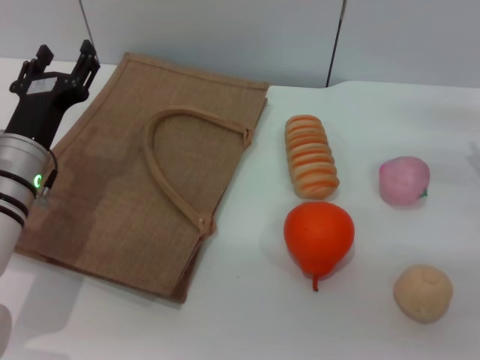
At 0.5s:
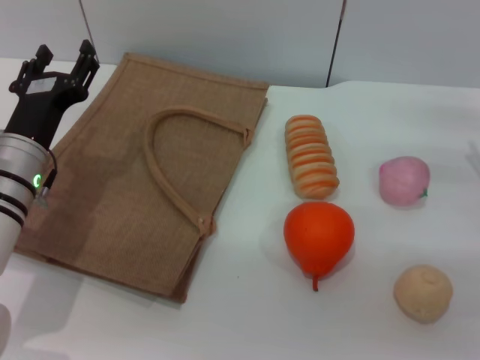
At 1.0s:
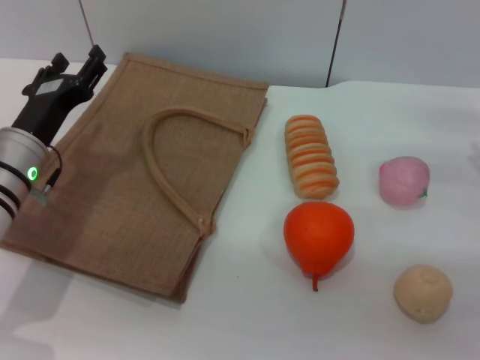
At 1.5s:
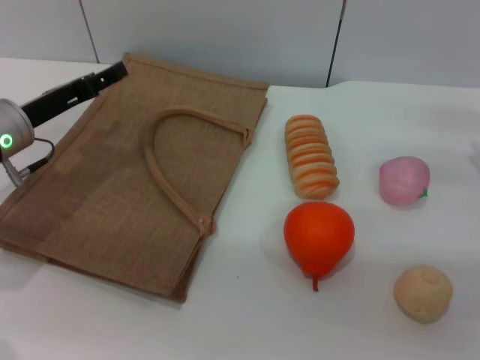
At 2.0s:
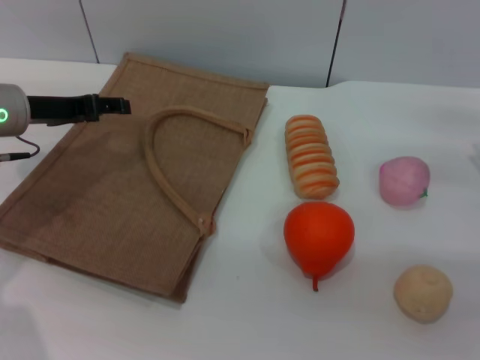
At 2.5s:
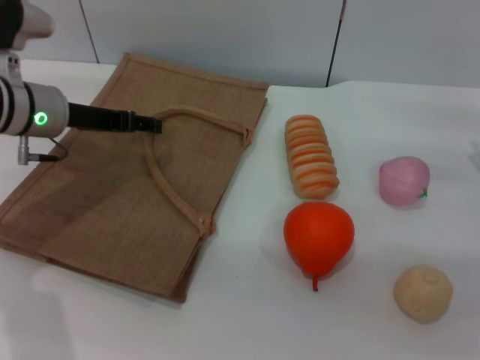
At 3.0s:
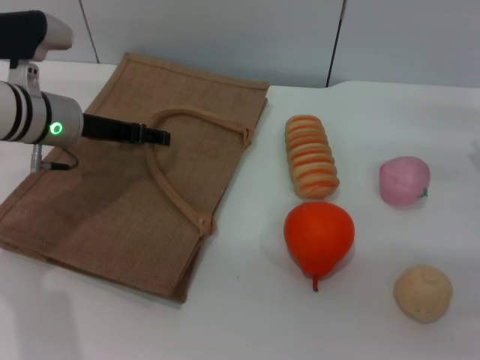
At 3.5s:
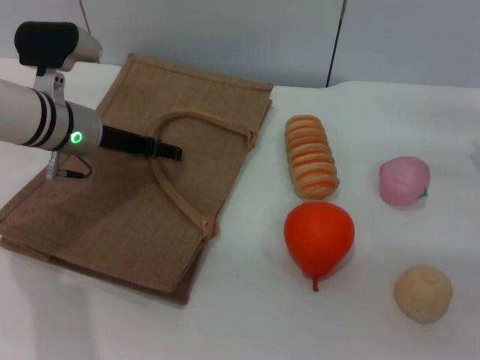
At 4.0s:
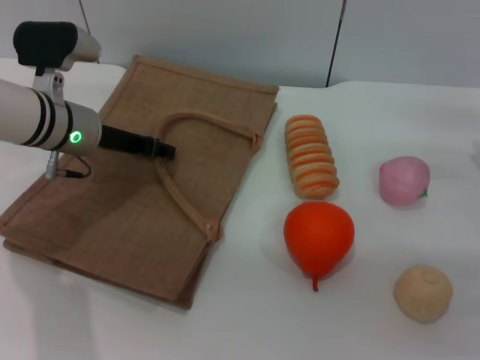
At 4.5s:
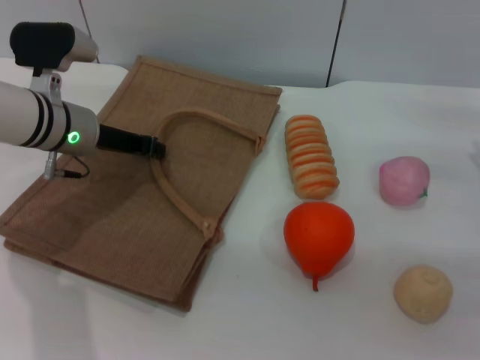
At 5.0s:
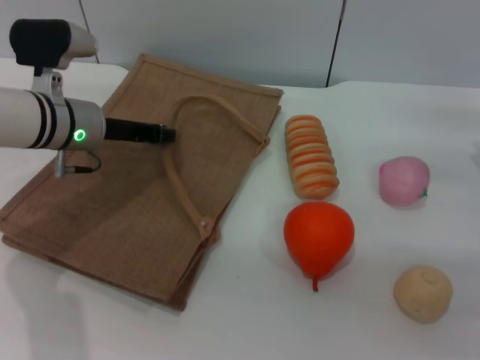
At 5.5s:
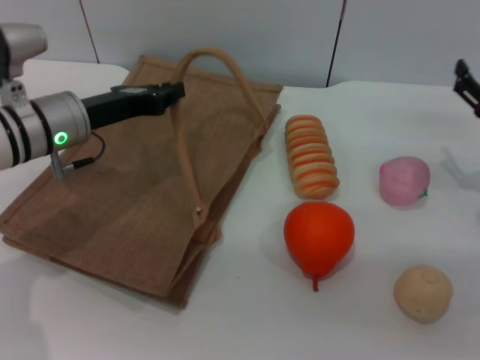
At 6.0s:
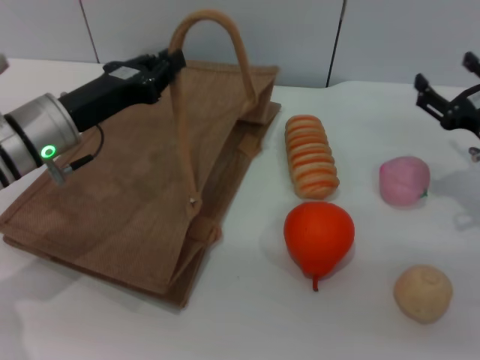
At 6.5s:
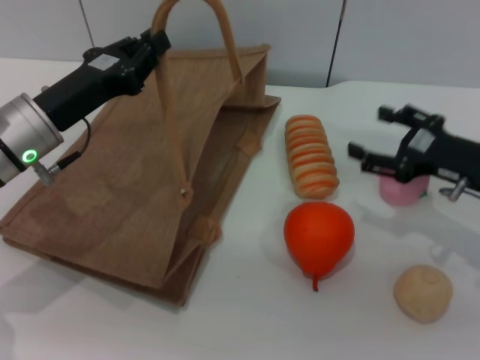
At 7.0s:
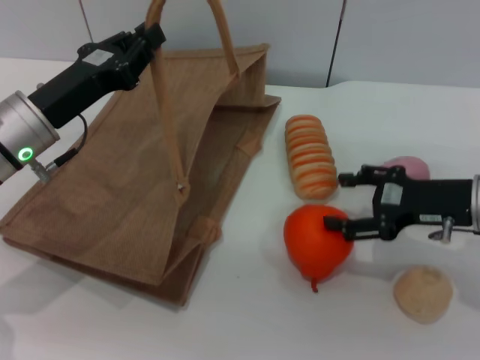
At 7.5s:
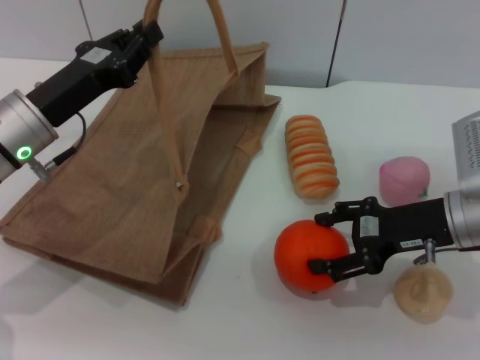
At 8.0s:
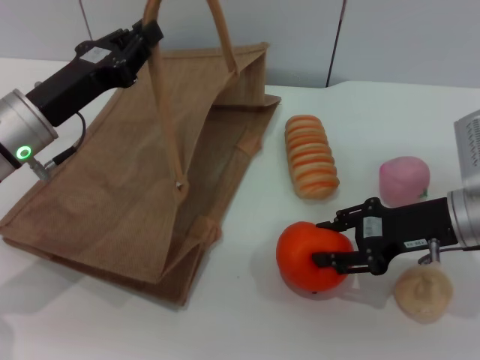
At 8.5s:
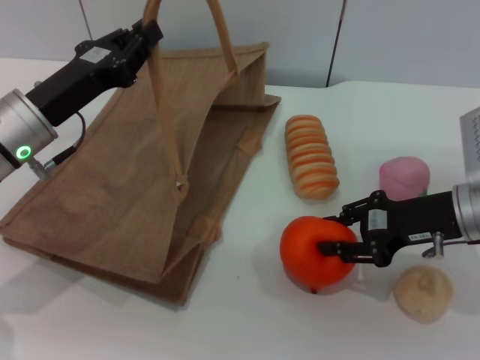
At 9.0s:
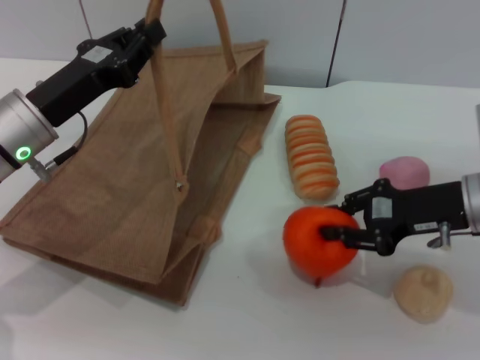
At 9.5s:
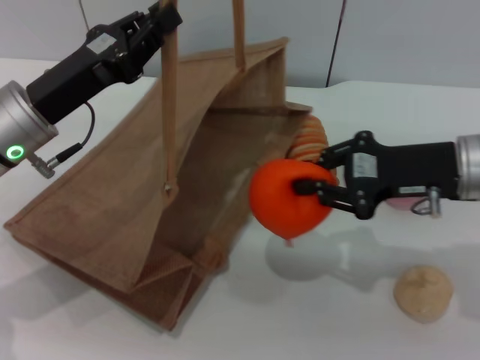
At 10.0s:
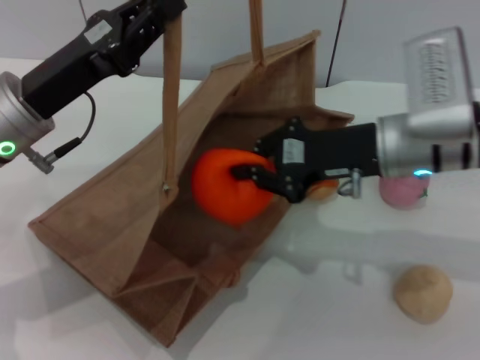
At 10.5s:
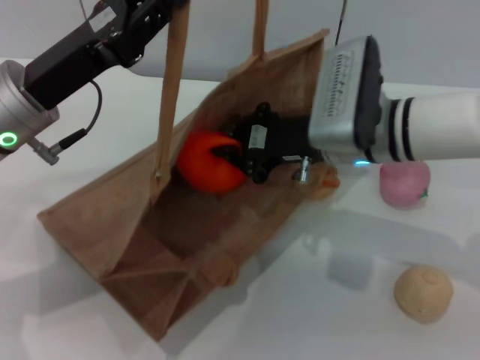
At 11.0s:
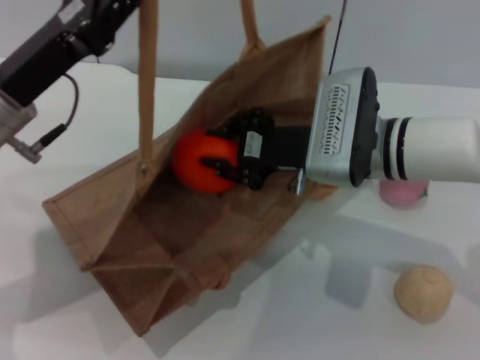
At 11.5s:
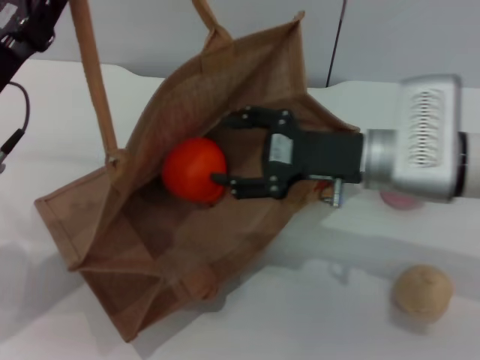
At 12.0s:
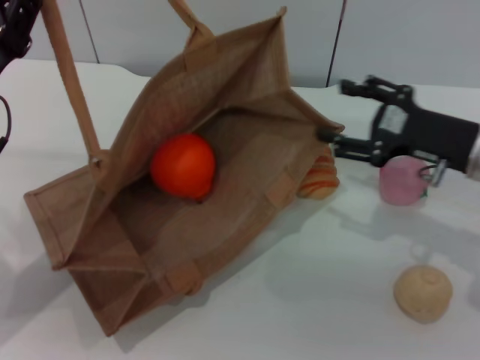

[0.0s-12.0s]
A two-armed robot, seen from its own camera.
Task of the whole recording: pick up the orange and peach from the table and place it in the brown handbag.
Step, 0.0s to 5.5s: Lift the woven bag with the left gripper to open it.
Step, 6.0s to 9.0s: Pick up the orange with the right gripper.
Step, 9.5s to 11.5s: Place the orange into the woven bag with the right gripper.
0.0s to 2.0s: The left gripper travels forward, upward and to the left by roughly 10 cm.
2.0s to 4.0s: The left gripper shifts roughly 5 cm to the right.
4.0s to 6.0s: The left gripper is displaced backward by about 5 cm, and closes up.
6.0s to 8.0s: The right gripper heads to the left, covering some 5 cm.
8.0s to 10.0s: The right gripper shifts roughly 10 cm to the left, and closes.
10.0s to 12.0s: The right gripper shifts about 10 cm to the right, and opens. Meanwhile the left gripper is displaced to the left by approximately 5 cm.

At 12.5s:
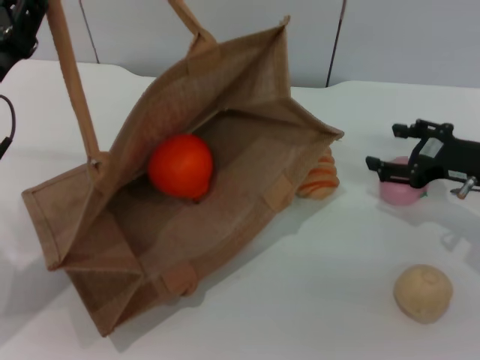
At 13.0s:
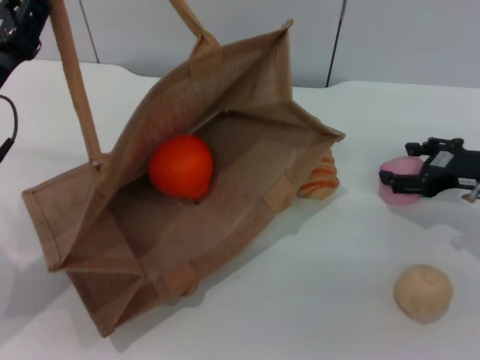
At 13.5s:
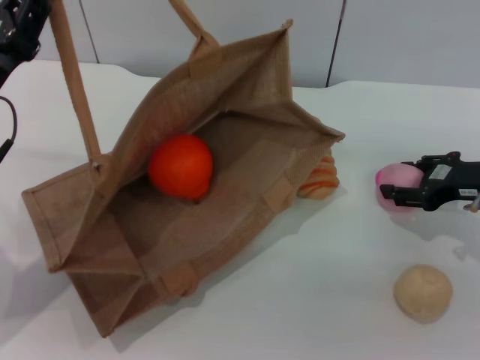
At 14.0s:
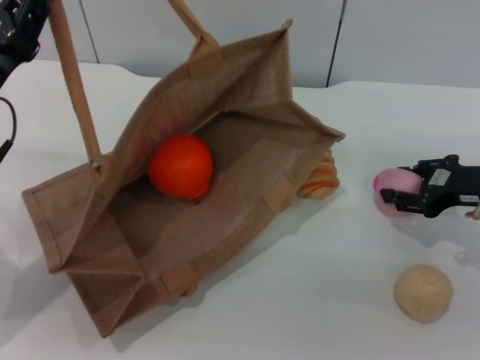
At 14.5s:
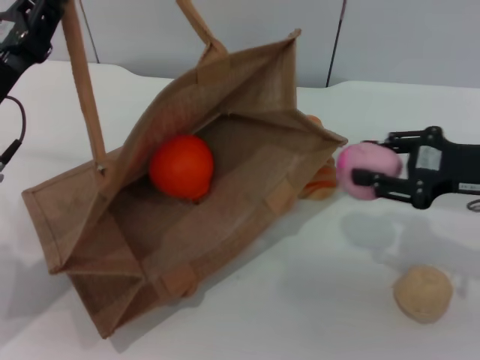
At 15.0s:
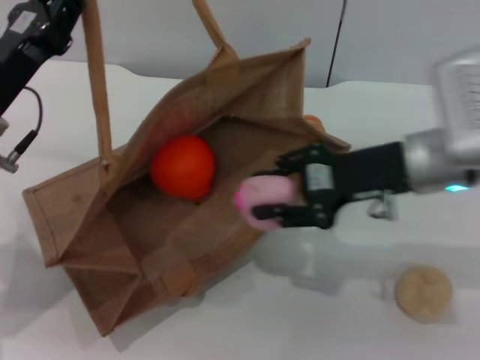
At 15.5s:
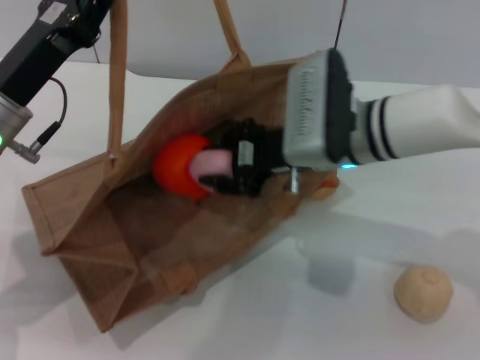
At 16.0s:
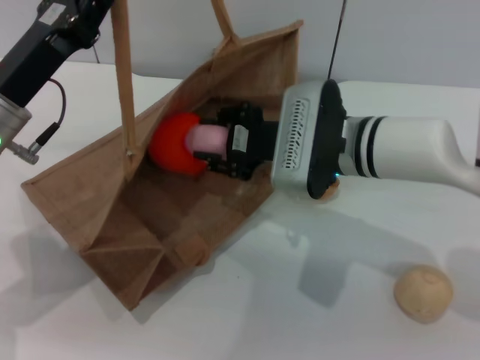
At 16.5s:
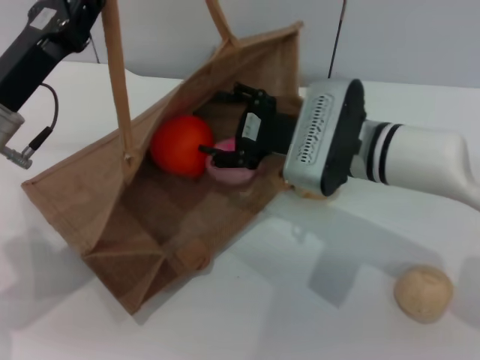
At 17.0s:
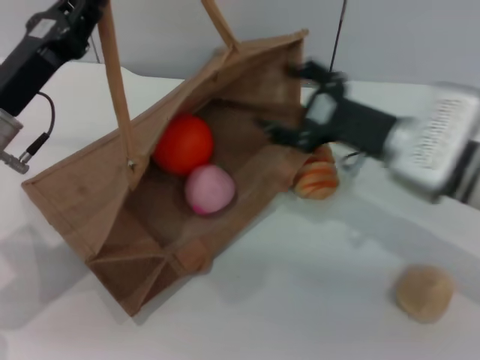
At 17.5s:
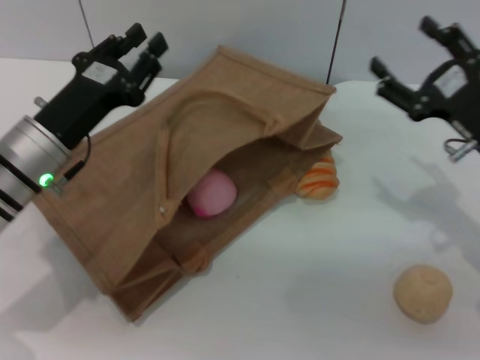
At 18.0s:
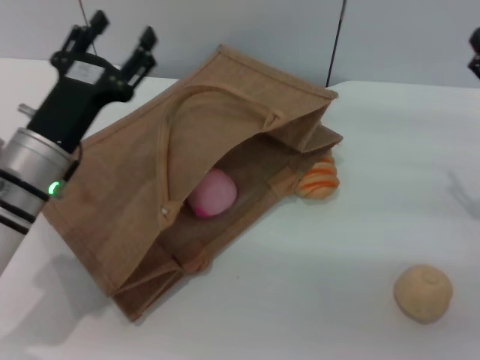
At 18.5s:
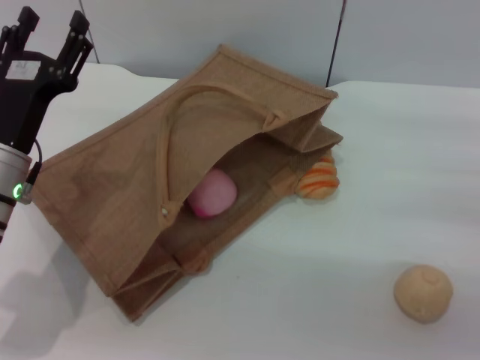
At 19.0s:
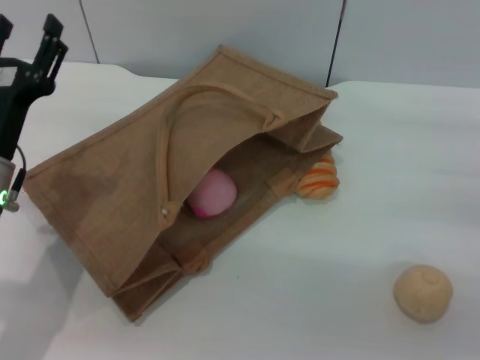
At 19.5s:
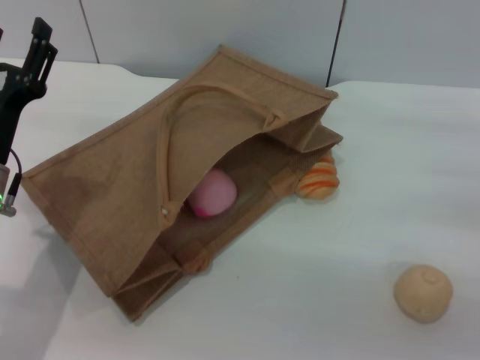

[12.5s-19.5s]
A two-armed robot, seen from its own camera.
Task of the whole recording: pick up the orange and peach from the table and place it in the brown handbag.
Step, 12.5s to 14.0s: Pick up the peach with the right gripper.
Step, 14.5s to 16.5s: Place the peach into the woven bag with the right gripper.
Step, 17.0s to 17.5s: Lower the woven bag with the left gripper to close it.
12.5s to 14.5s: The right gripper closes up.
14.5s to 16.0s: The right gripper moves to the left, approximately 20 cm.
16.0s to 17.5s: The right gripper heads to the right, covering roughly 15 cm, and opens.
17.5s to 19.5s: The right gripper travels to the right by about 5 cm, while the left gripper ends up roughly 5 cm from where it was, and opens its fingers.

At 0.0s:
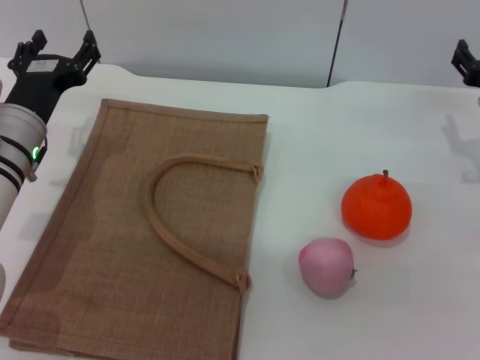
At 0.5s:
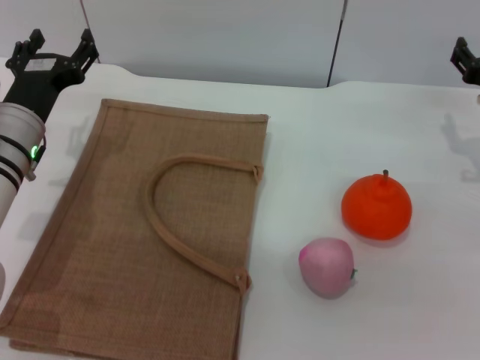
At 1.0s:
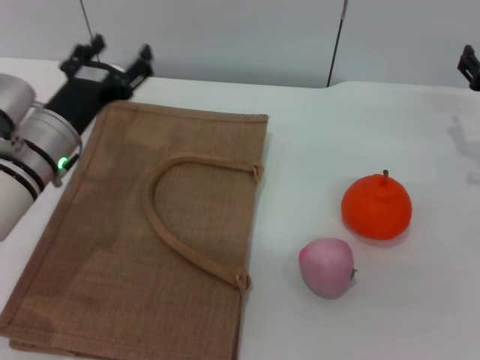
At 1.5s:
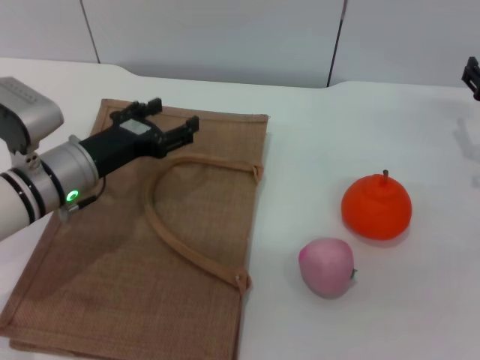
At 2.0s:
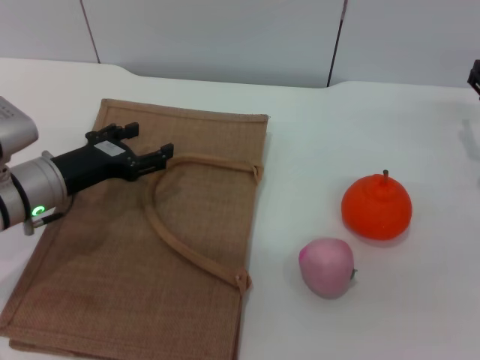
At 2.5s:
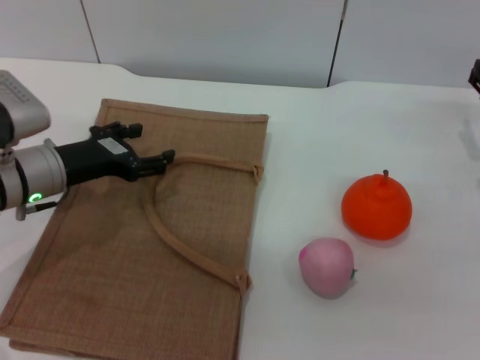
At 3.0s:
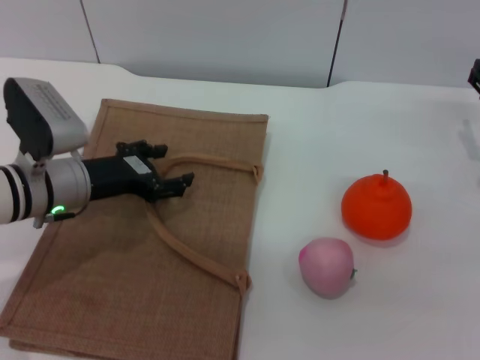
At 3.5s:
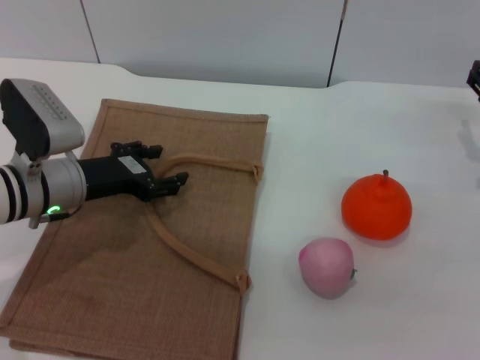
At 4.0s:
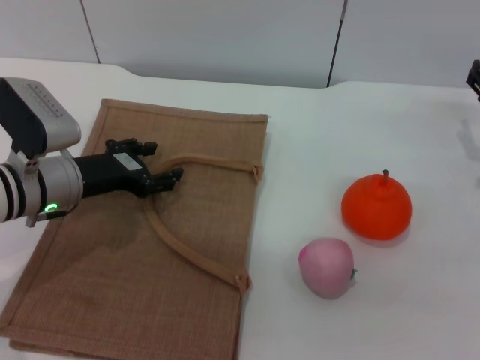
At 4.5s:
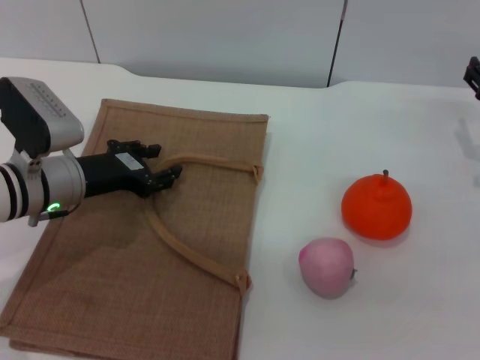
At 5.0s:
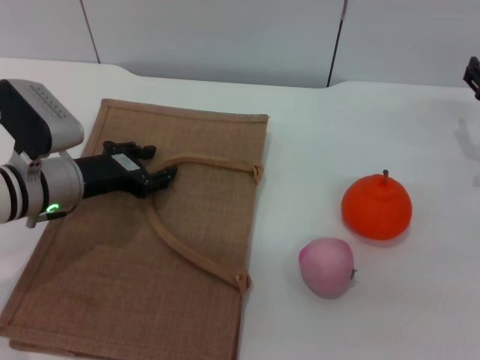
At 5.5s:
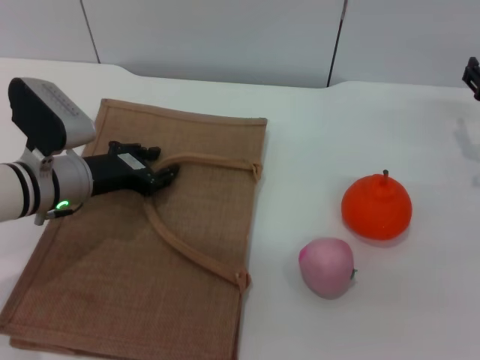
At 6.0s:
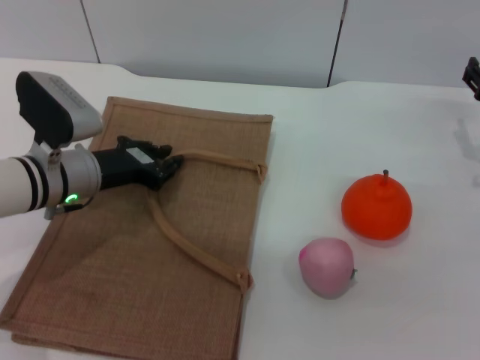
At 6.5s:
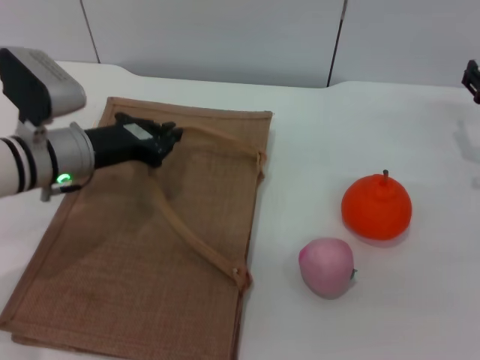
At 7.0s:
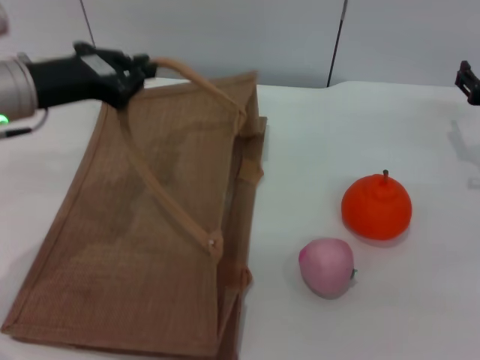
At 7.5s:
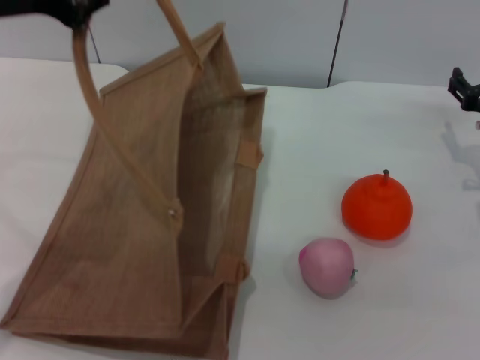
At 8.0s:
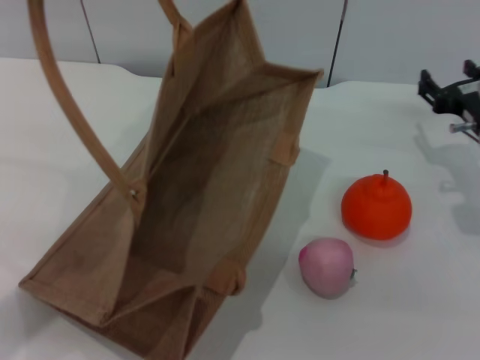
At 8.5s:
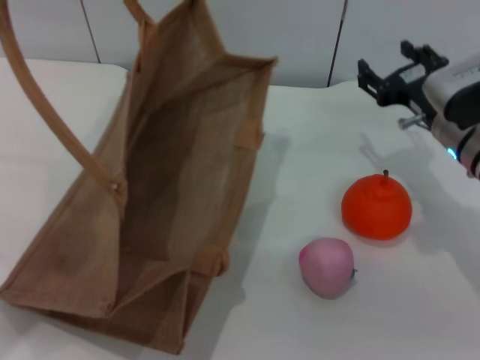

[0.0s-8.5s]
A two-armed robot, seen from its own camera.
Task of the whole recording: pick up the orange and peach from the table and place it in the brown handbag.
2.0s to 4.0s: The grippers stay close to where they were, moving slightly.
4.0s to 6.5s: The left gripper closes up.
6.5s to 8.5s: The right gripper is displaced to the left by some 10 cm; the left gripper goes about 25 cm upward.
